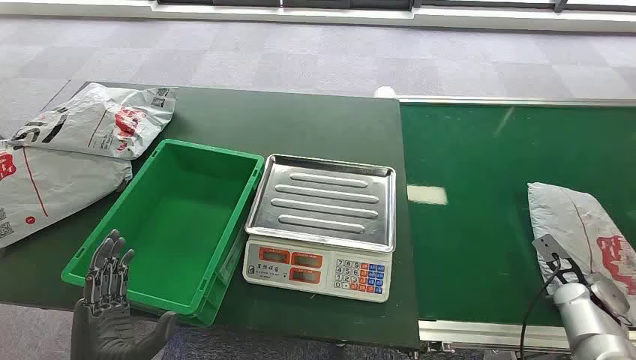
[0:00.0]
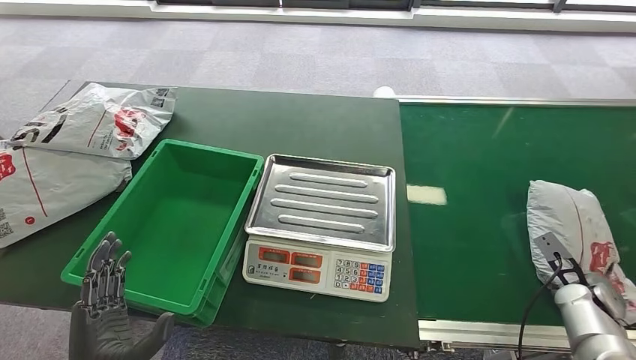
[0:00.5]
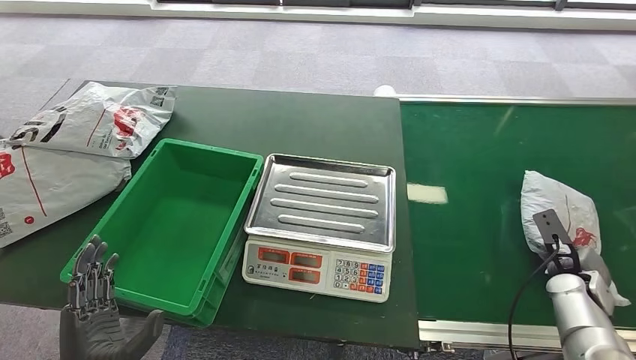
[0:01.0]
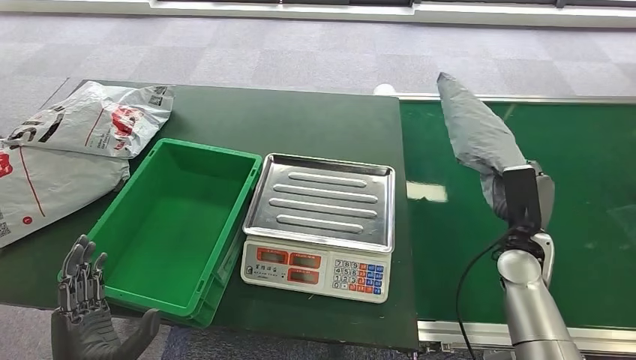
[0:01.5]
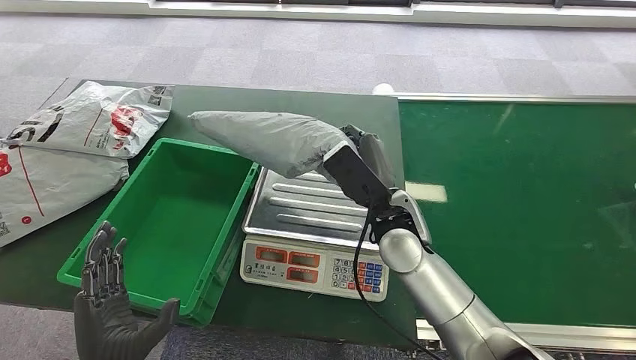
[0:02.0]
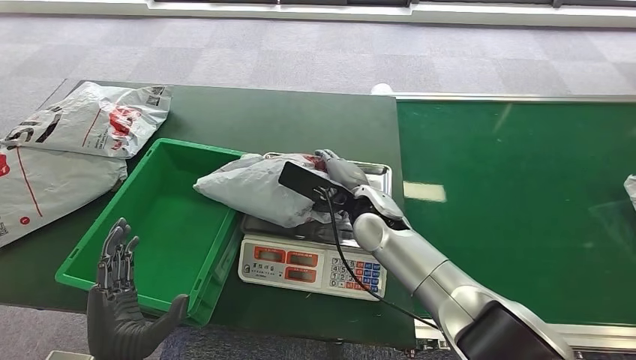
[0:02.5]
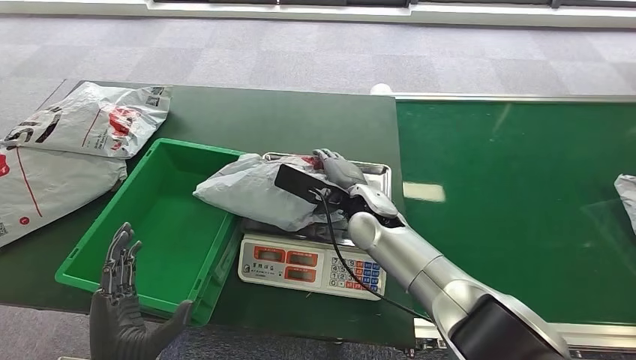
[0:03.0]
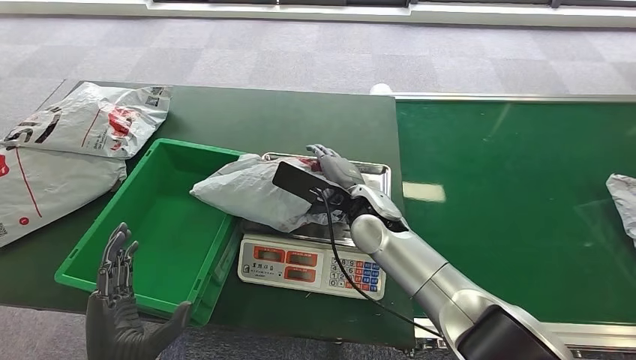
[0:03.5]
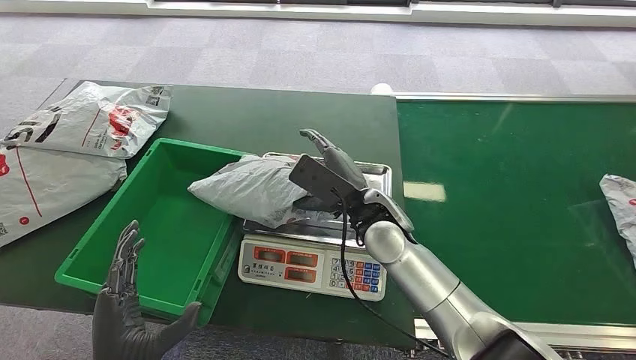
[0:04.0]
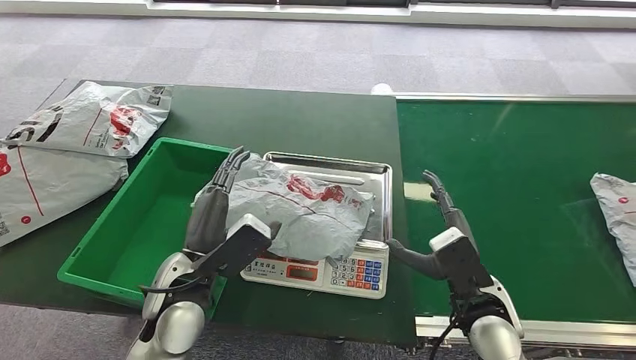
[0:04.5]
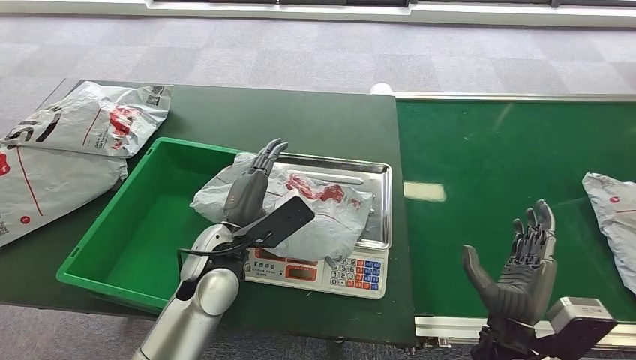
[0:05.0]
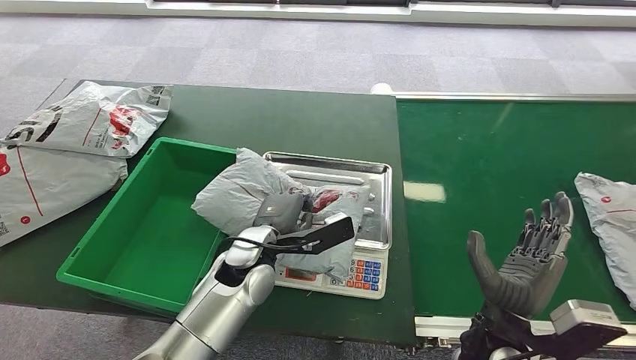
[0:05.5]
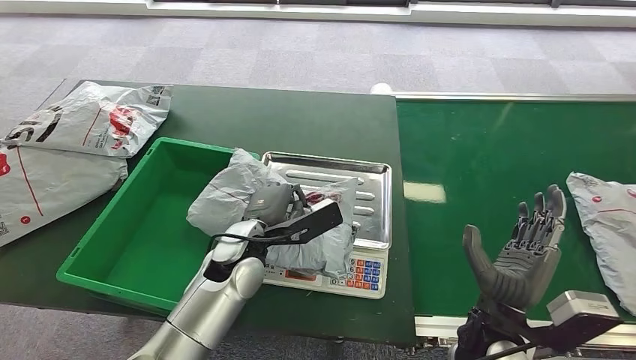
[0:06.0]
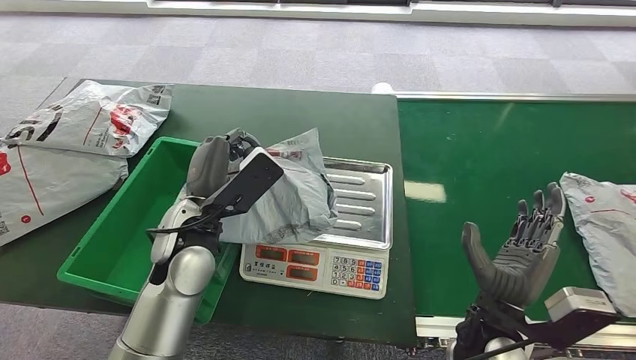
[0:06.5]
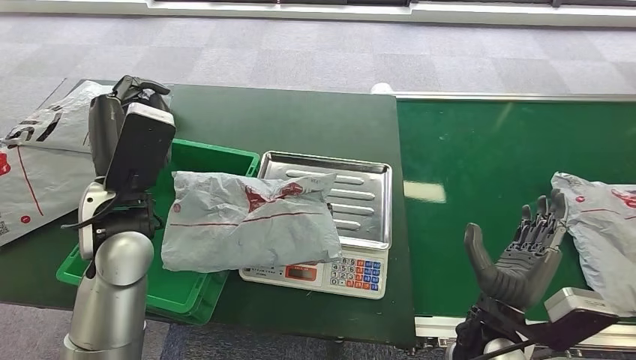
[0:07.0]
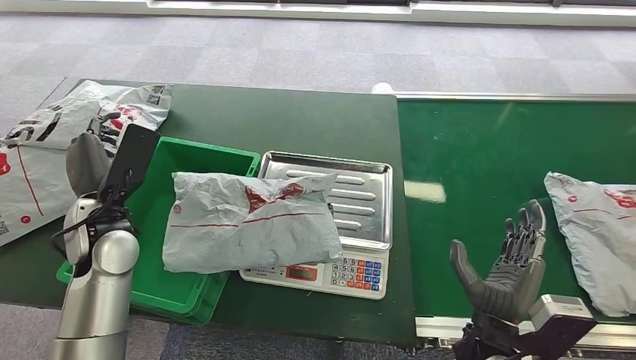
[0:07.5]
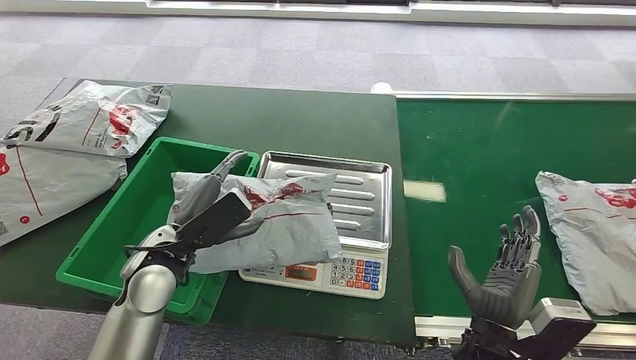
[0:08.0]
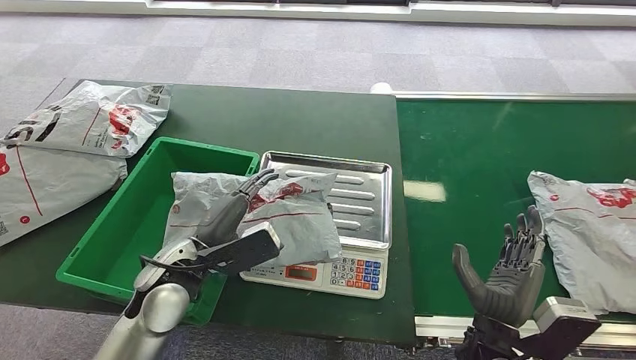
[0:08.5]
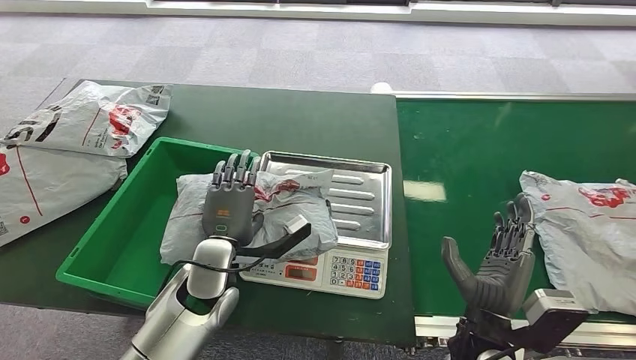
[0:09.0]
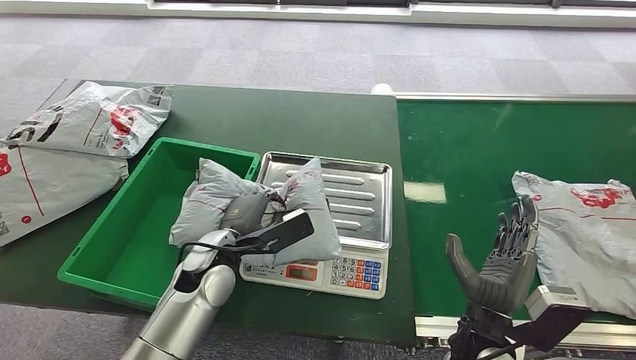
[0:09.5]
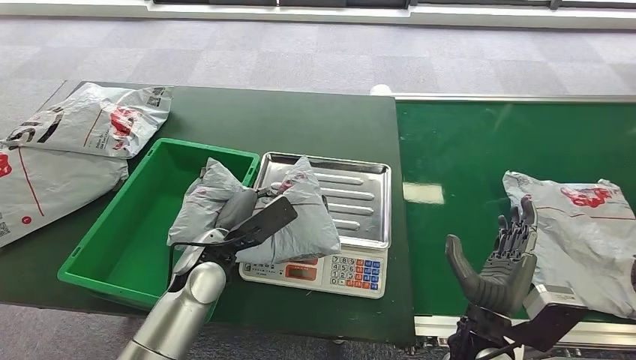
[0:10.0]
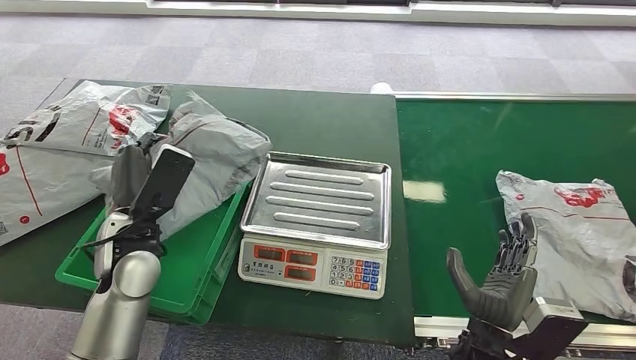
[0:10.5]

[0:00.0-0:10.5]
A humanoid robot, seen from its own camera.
Task of the whole recording: Weigh the package on the weighing device and place it in the left basket.
Step, 0:00.0 to 0:01.0: Pick up the package from the conveyor belt.
Step, 0:01.5 to 0:03.5: Place the package onto the inbound machine.
Step, 0:06.5 to 0:10.0: Pick up the package from the inbound machine.
0:06.5 to 0:08.5: The left hand is displaced downward by roughly 5 cm, and goes to the left and returns, about 15 cm each way.
0:08.5 to 0:10.5: The left hand travels to the left by approximately 5 cm.

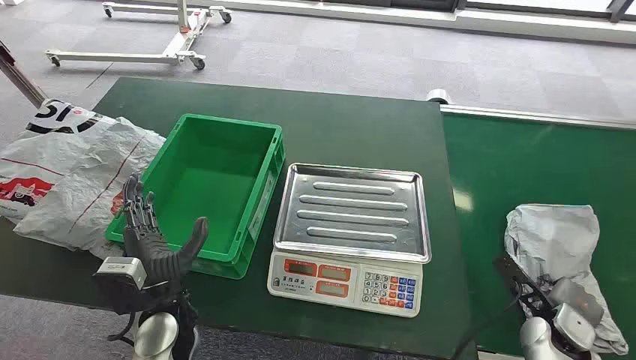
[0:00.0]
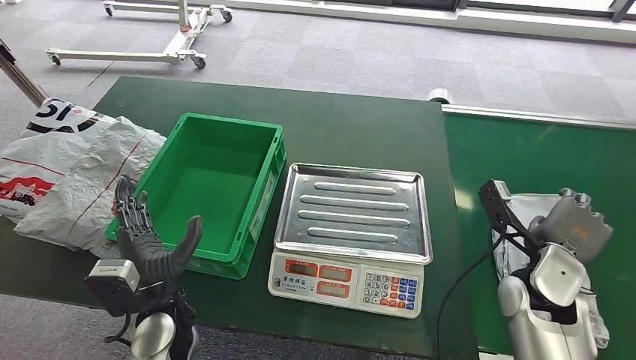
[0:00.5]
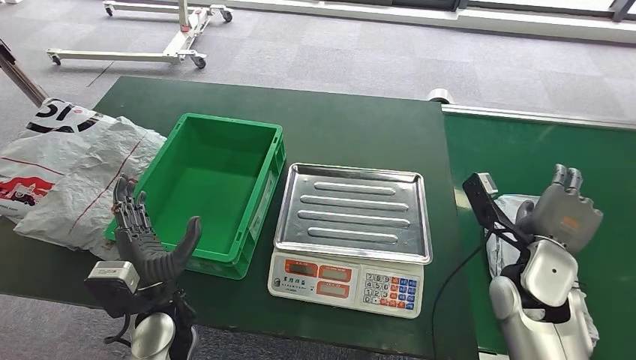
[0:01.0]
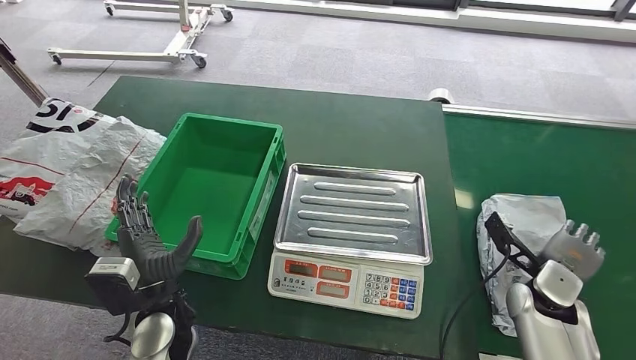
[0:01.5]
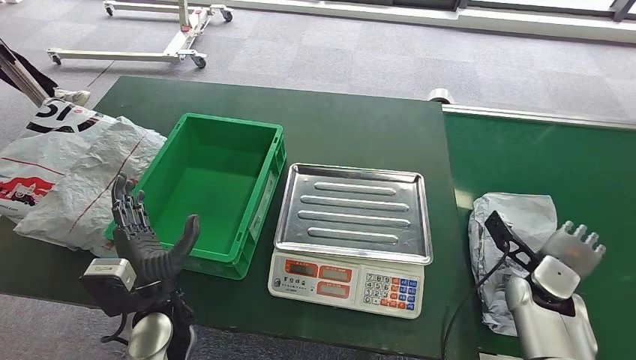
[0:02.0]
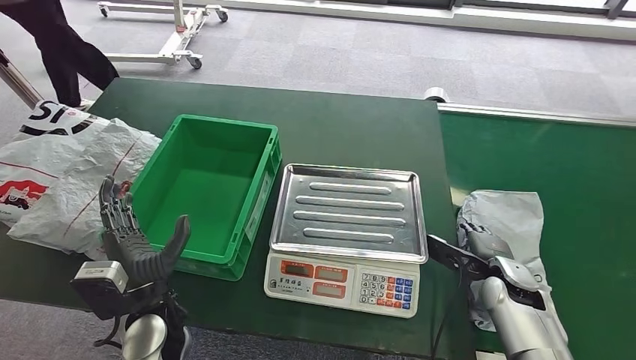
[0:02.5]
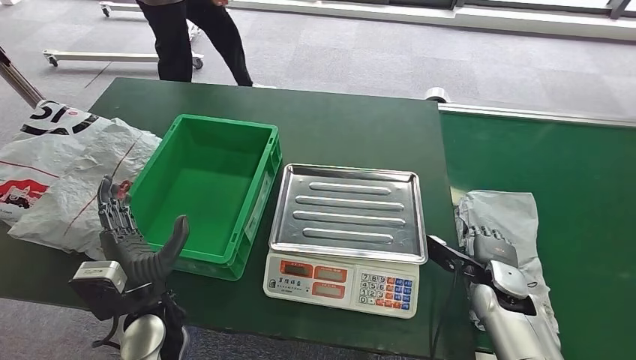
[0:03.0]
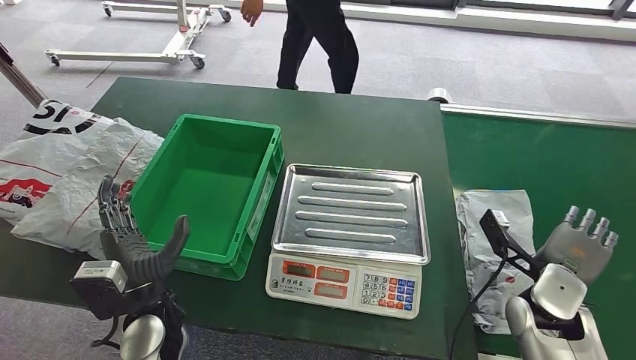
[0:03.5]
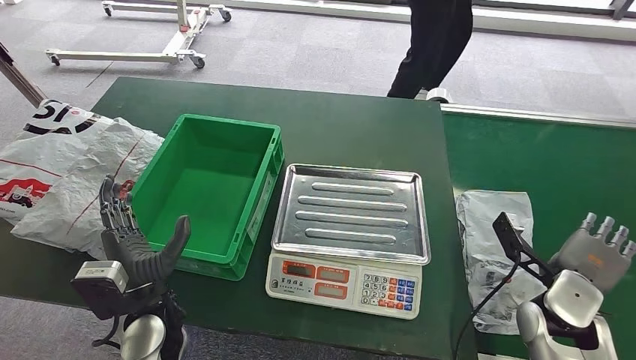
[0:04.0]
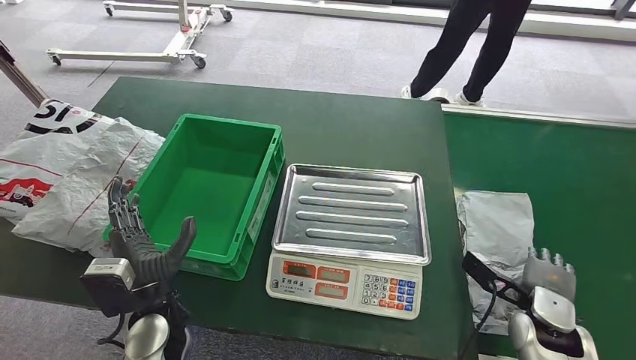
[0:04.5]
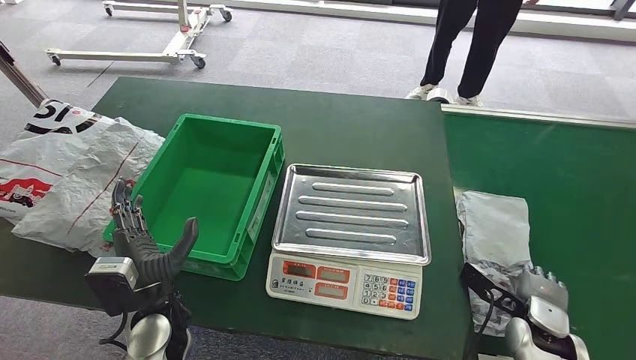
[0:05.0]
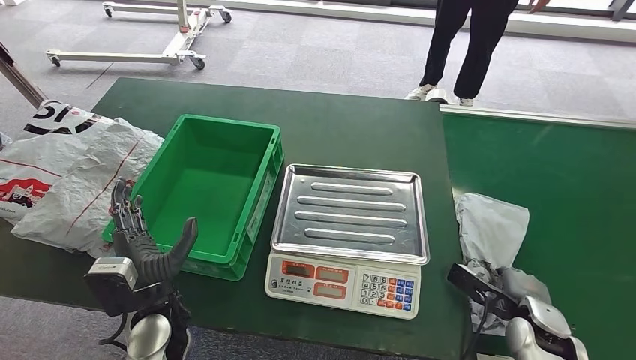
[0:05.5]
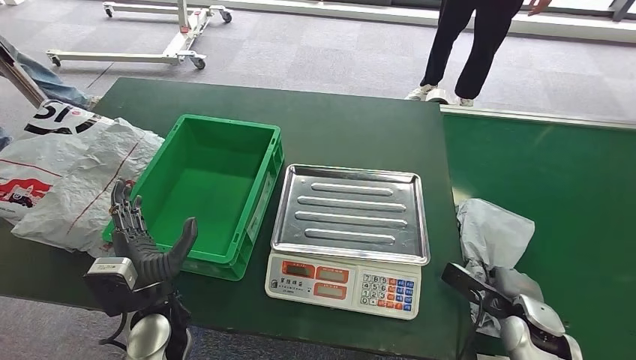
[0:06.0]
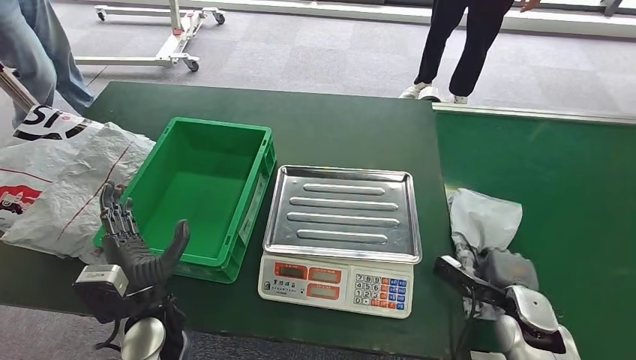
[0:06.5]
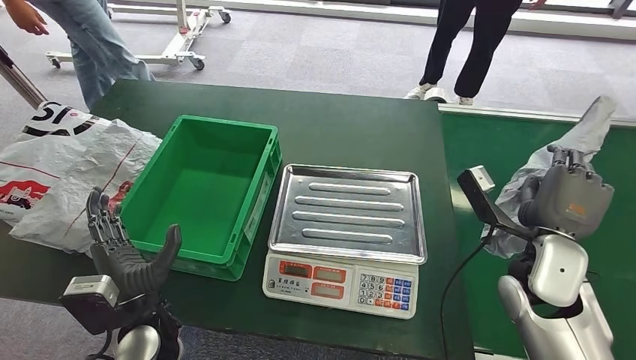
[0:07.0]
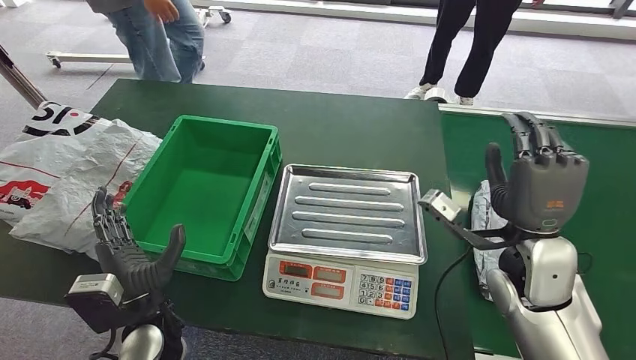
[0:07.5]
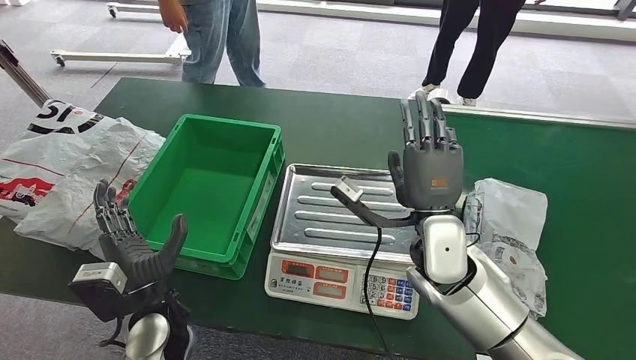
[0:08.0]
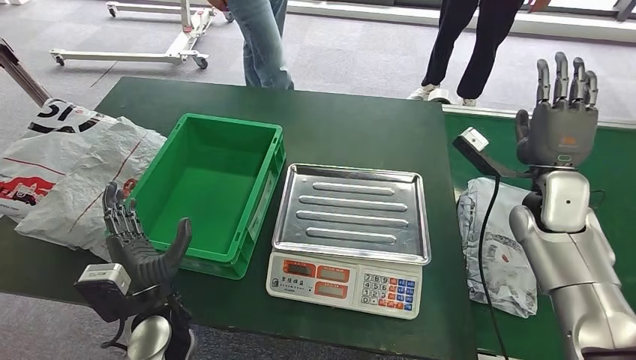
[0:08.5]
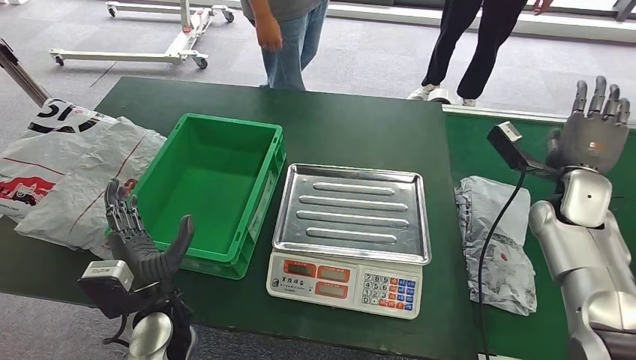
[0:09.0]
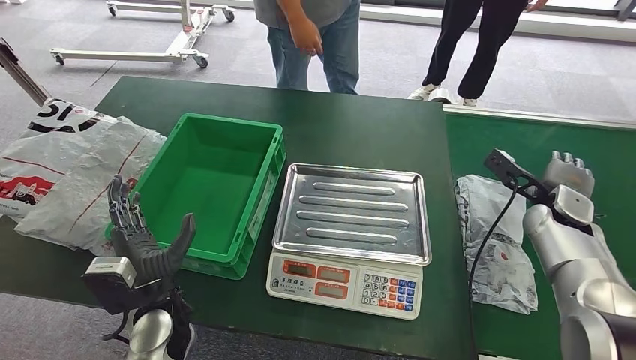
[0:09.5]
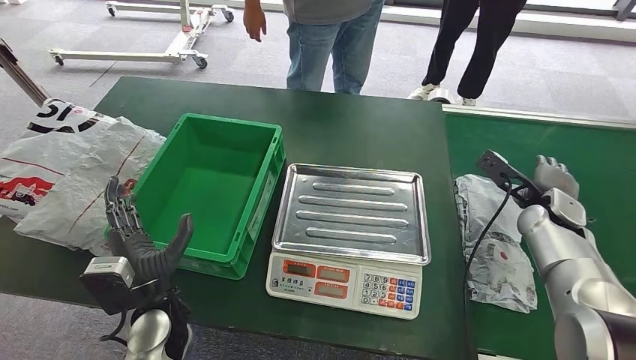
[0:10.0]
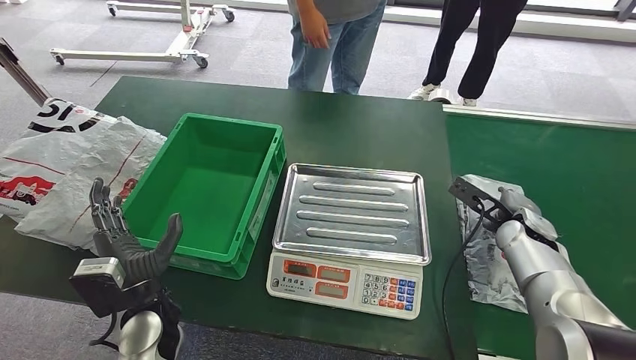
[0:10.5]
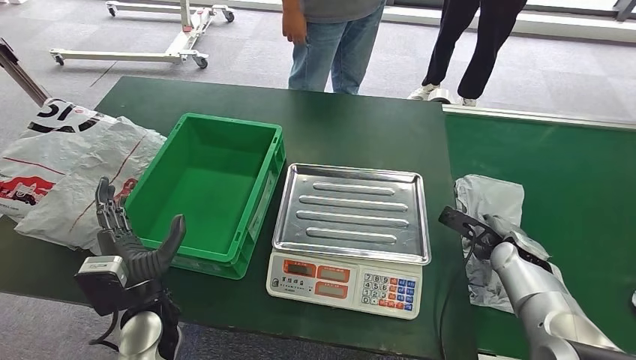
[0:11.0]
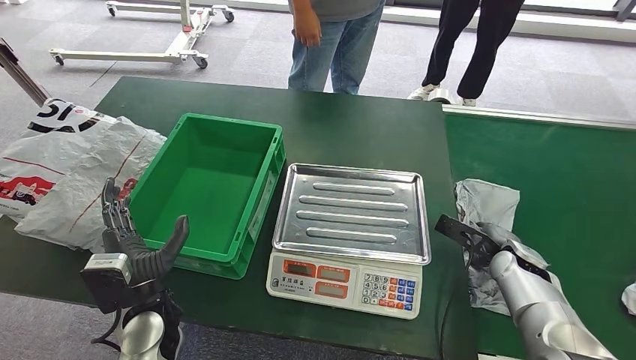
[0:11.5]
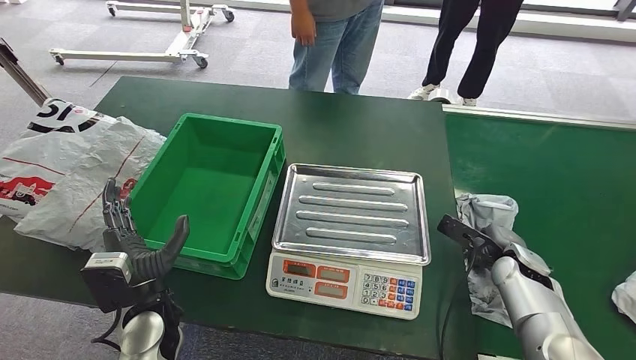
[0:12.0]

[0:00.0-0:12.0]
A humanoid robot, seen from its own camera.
Task of the whole recording: Weigh the package on the weighing device and place it in the left basket.
0:04.0 to 0:06.0: The right hand heads downward, covering roughly 10 cm.
0:10.0 to 0:12.0: The right hand shifts roughly 10 cm downward and backward.
